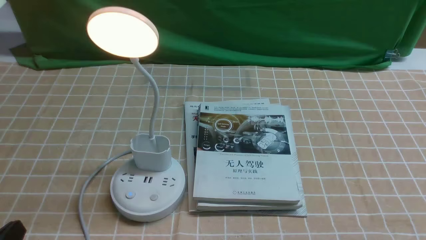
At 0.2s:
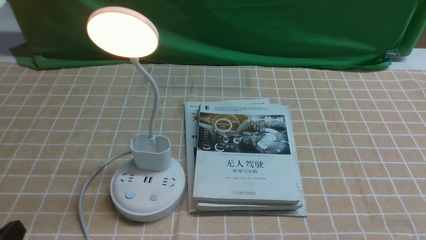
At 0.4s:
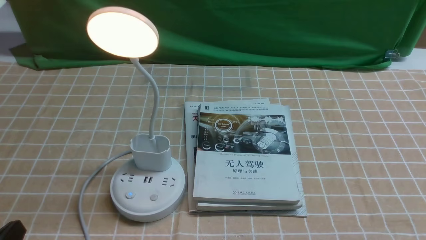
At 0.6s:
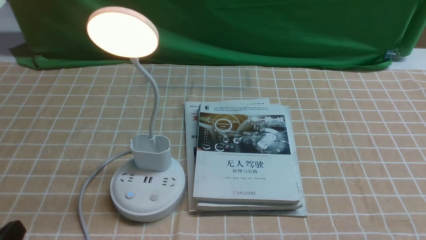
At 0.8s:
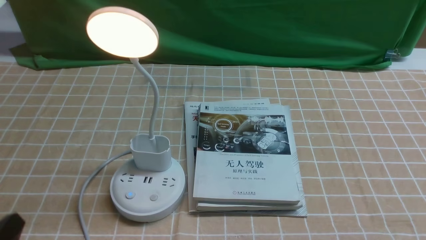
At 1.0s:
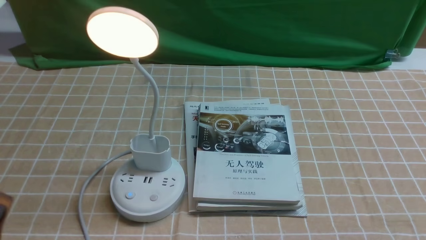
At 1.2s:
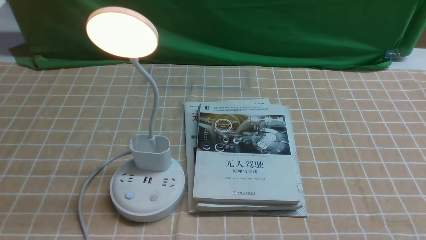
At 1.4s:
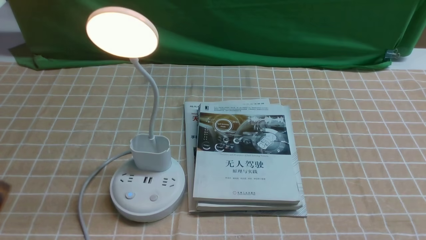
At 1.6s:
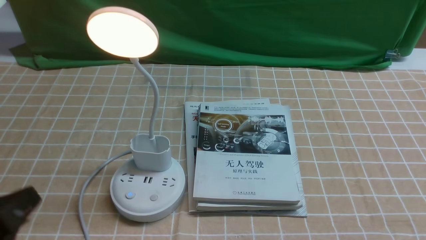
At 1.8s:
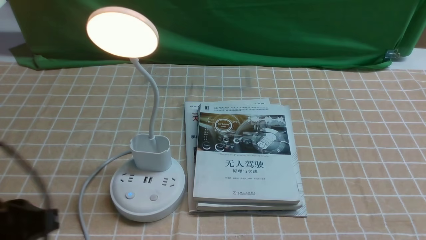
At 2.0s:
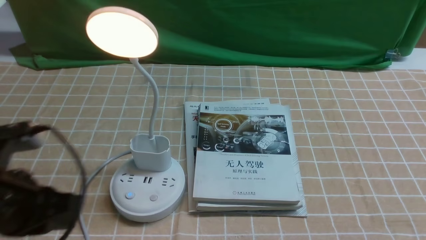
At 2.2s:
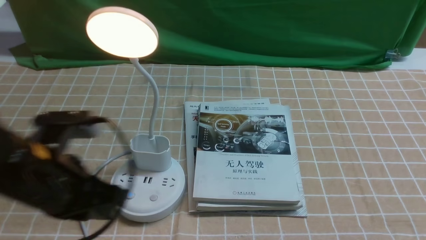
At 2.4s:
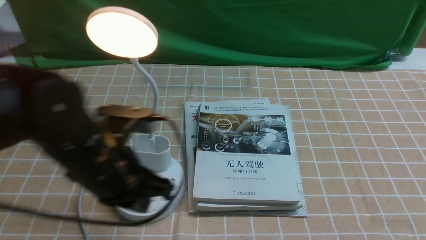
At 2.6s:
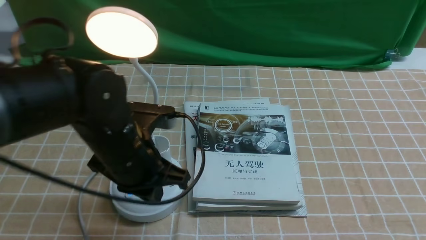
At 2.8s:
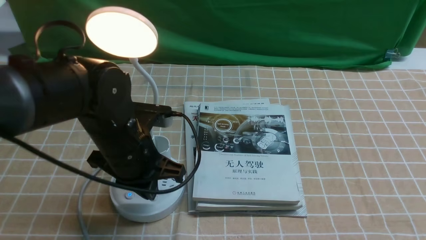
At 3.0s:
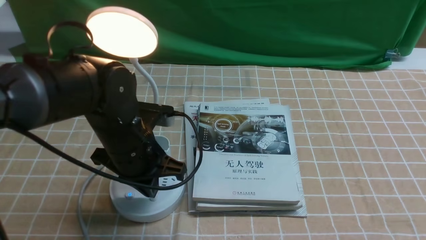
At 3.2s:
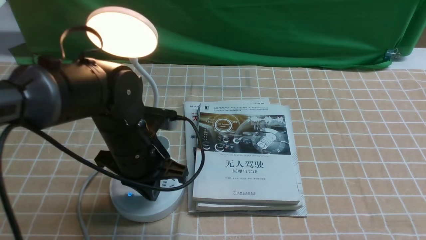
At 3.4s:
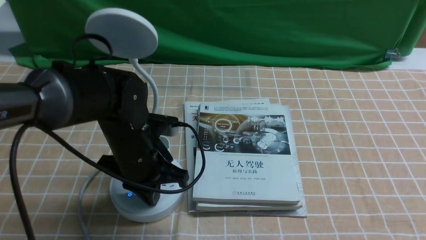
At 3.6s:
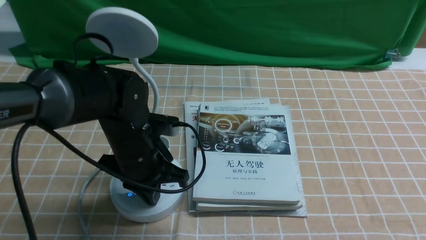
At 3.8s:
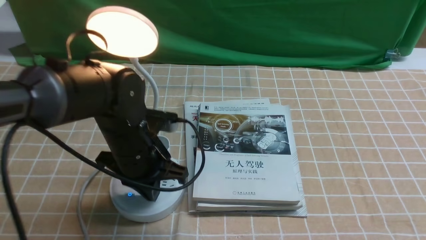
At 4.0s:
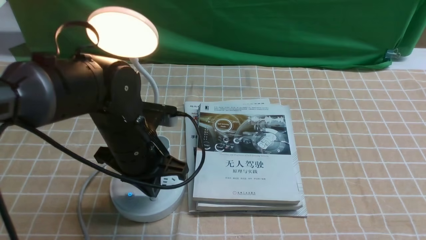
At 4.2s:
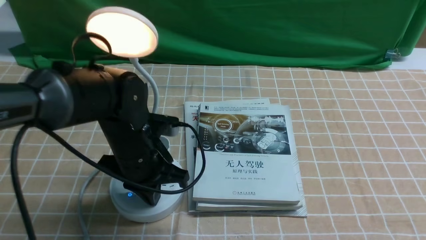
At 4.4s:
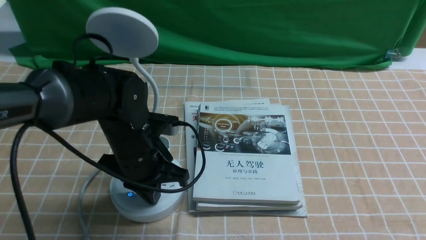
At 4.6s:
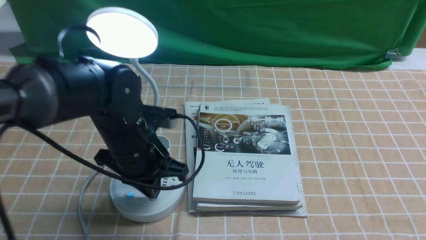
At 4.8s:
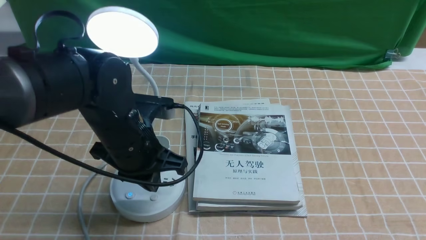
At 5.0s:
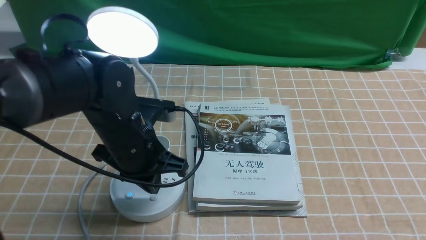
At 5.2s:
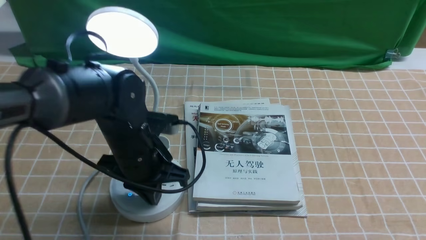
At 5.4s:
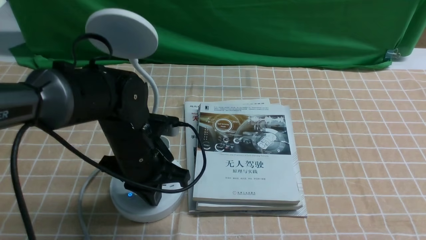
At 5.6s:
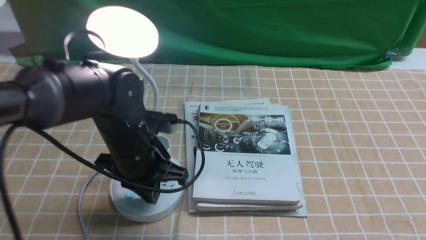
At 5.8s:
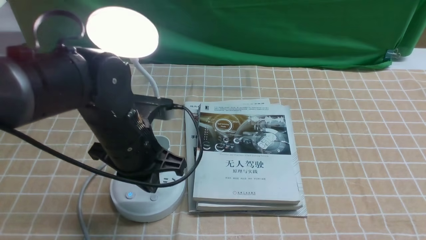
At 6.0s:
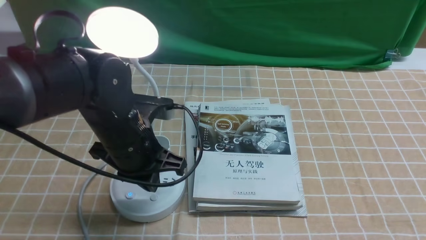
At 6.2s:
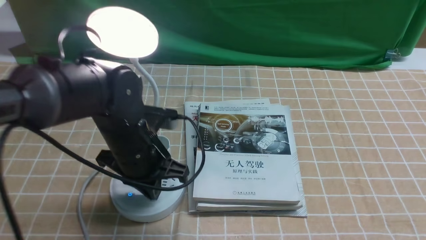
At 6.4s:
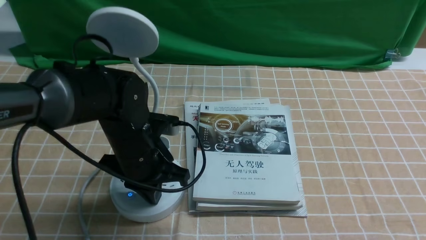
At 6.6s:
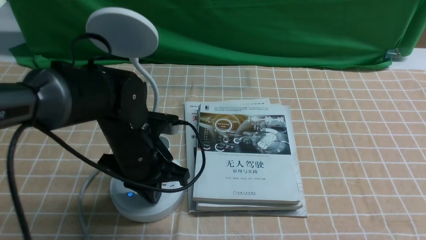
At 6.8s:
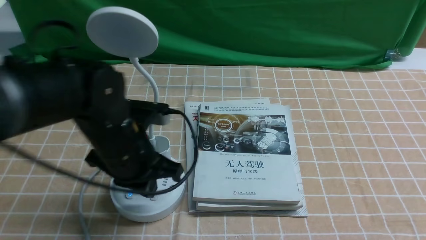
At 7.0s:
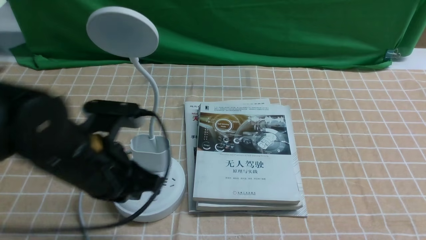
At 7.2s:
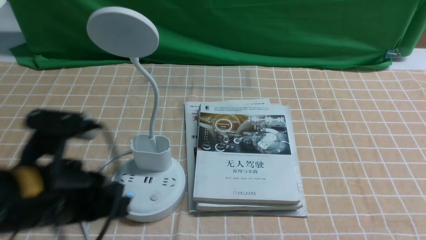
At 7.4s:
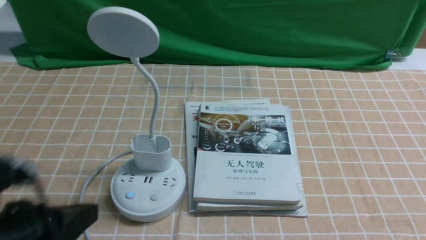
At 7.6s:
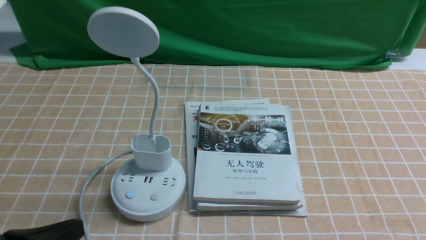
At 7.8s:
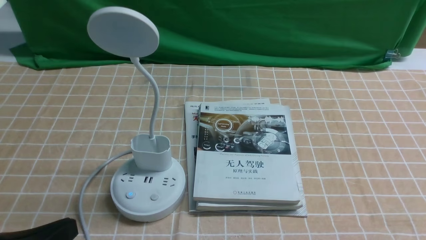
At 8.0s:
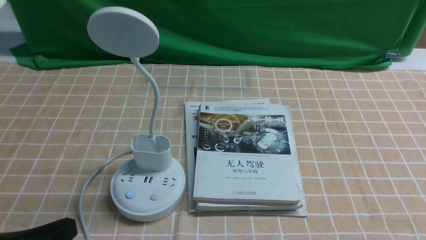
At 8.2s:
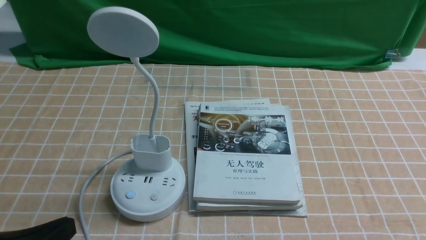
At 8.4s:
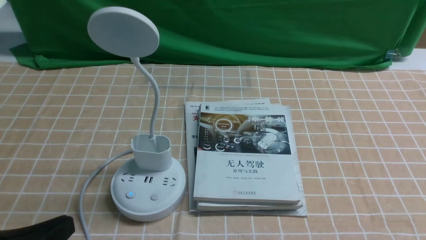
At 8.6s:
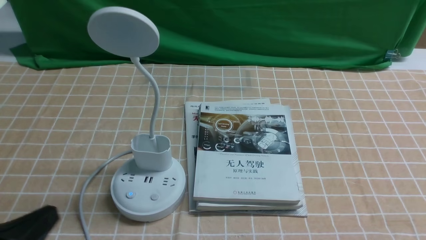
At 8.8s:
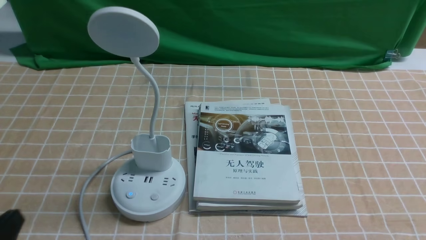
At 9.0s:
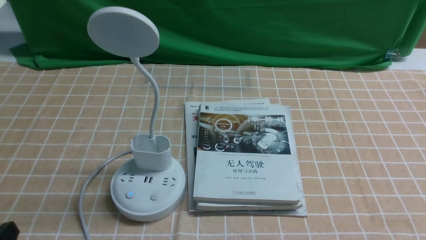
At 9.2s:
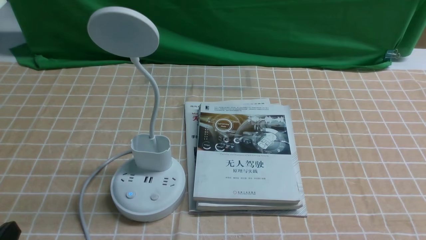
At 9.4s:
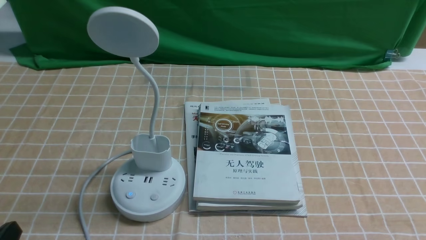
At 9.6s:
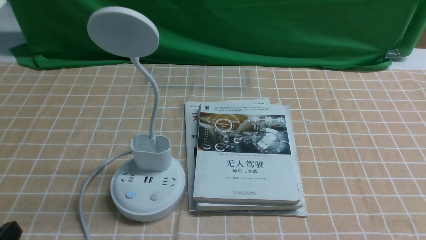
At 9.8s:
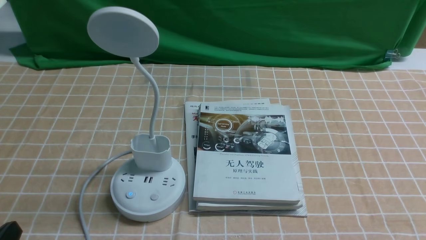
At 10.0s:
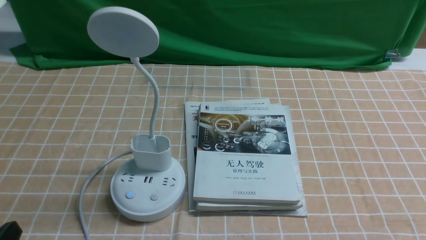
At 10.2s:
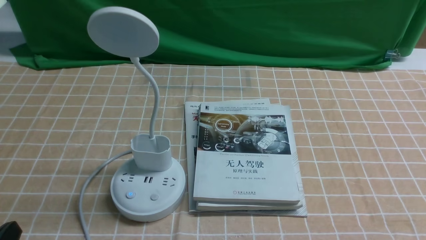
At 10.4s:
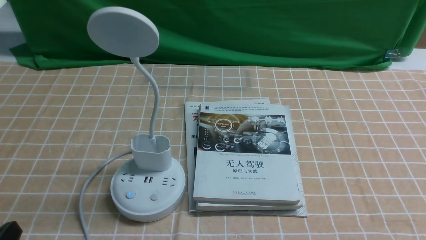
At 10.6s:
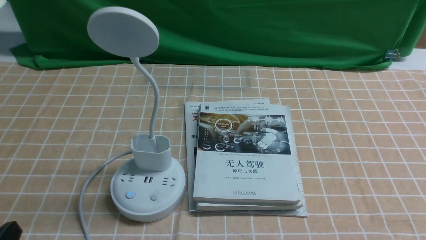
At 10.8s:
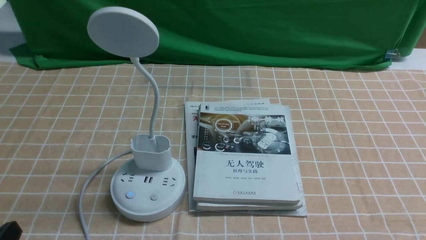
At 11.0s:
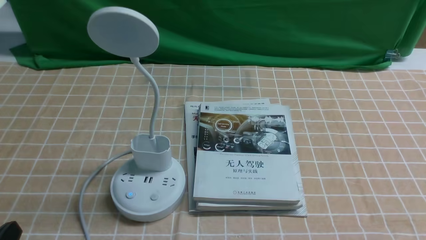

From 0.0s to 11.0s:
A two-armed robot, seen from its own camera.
Task of the whole recording: turn off the desk lamp on the light coffee tablecloth by hand.
Step, from 0.0s to 6.6s: use the left arm to press the button switch on the lamp holder.
From 0.0s to 1.6s: The left gripper moves upward, about 10 cm.
From 1.6s to 3.2s: The left gripper moves forward and to the right, some 25 cm, and closes up.
From 3.2s to 6.2s: The grippers stay close to where they were, moving slightly.
From 6.2s to 7.8s: The left gripper travels backward and to the left by approximately 25 cm.
From 7.8s to 9.4s: The left gripper travels downward by roughly 5 cm.
From 9.4s to 11.0s: The two grippers keep their place.
